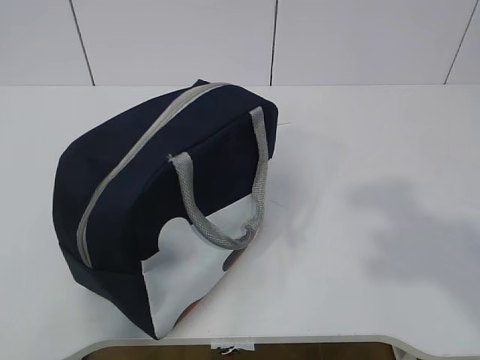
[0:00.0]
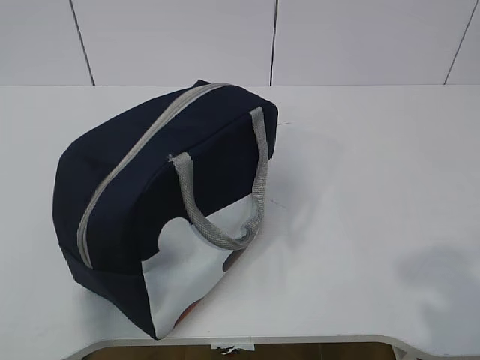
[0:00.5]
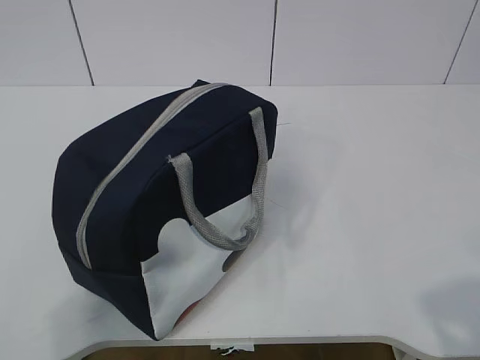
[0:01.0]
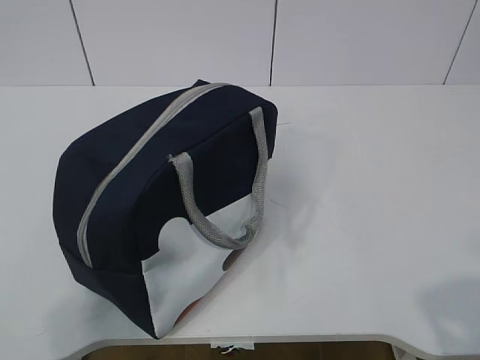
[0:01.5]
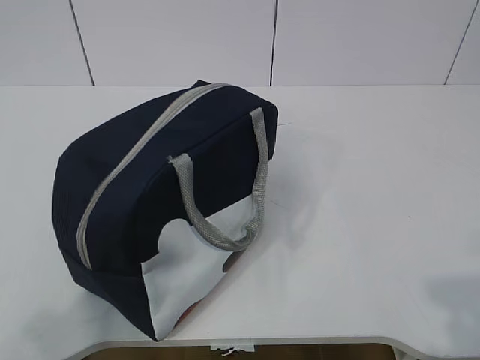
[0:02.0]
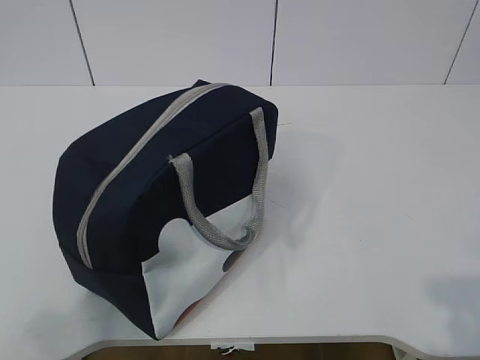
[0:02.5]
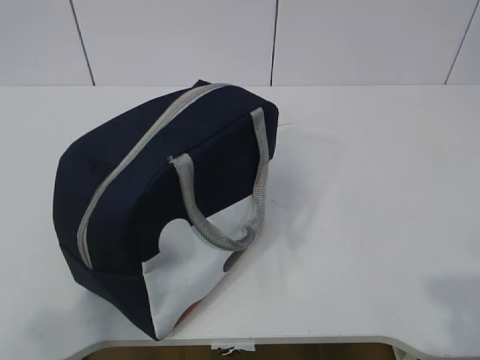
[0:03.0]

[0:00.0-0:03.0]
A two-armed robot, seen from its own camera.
0:00.0 to 0:01.5: The right gripper shifts roughly 10 cm downward and backward. The left gripper travels downward by roughly 10 cm.
0:01.5 to 0:03.0: The grippers make only small movements.

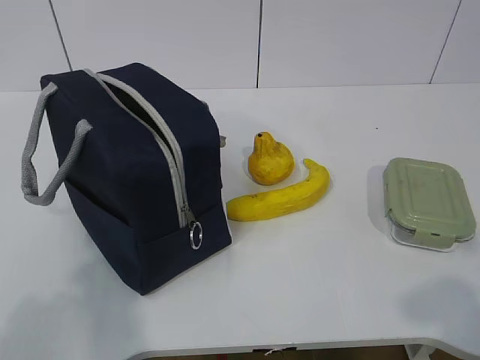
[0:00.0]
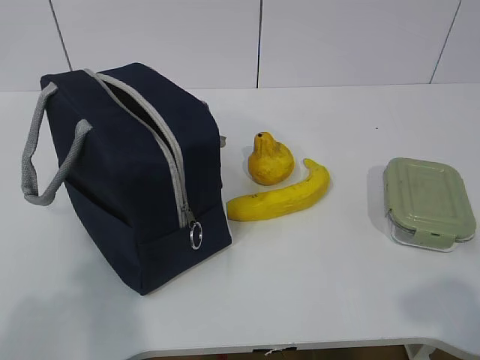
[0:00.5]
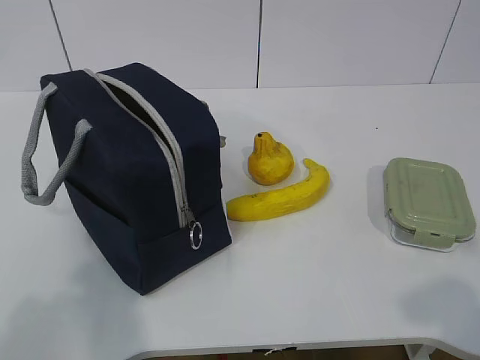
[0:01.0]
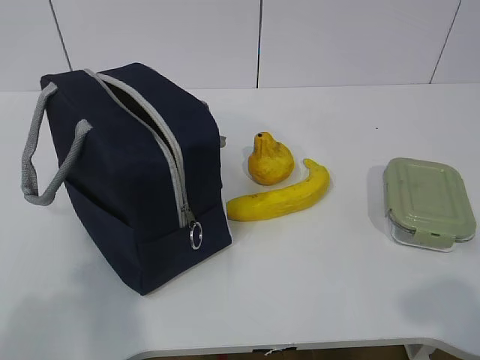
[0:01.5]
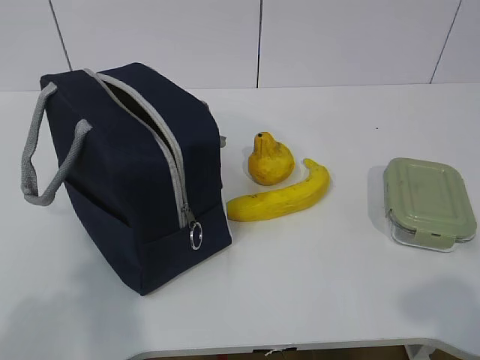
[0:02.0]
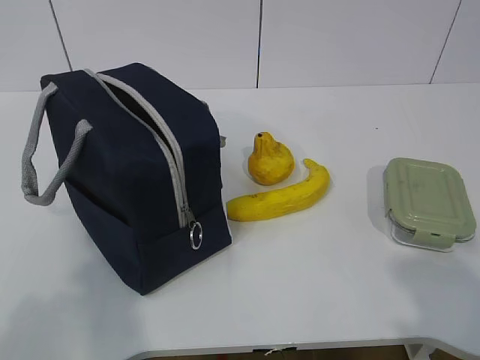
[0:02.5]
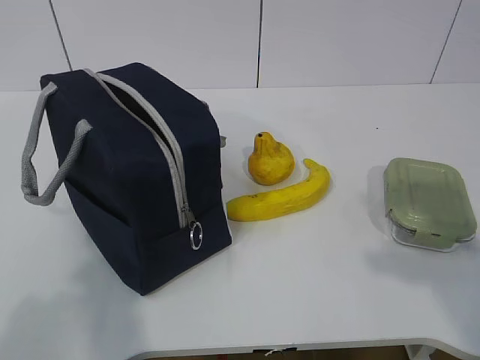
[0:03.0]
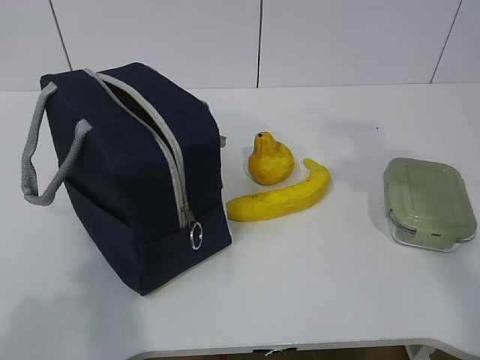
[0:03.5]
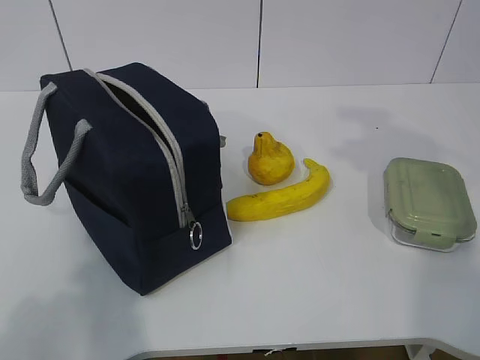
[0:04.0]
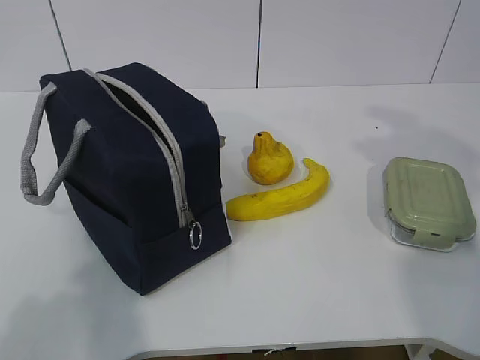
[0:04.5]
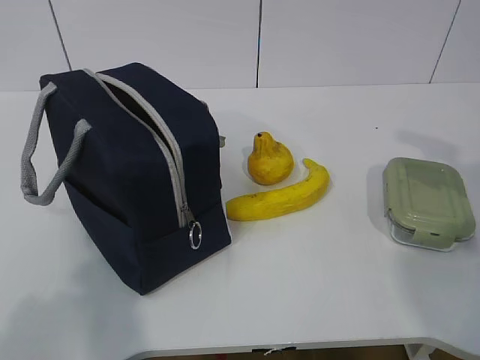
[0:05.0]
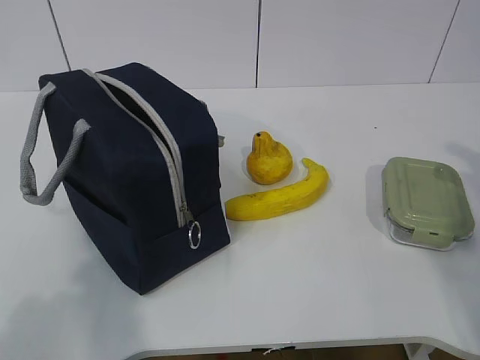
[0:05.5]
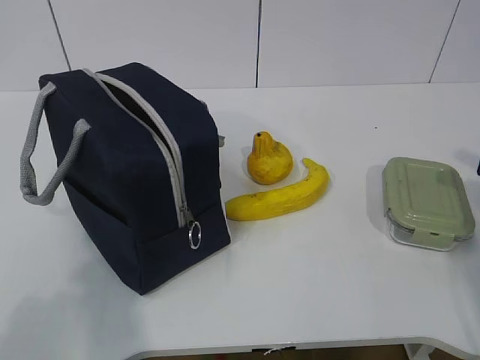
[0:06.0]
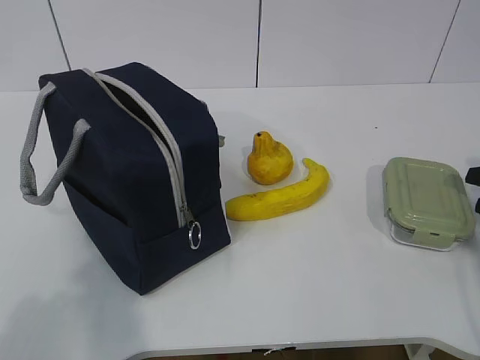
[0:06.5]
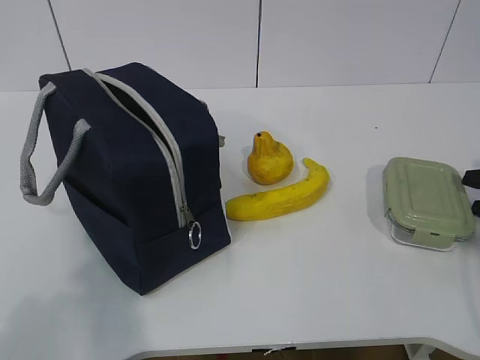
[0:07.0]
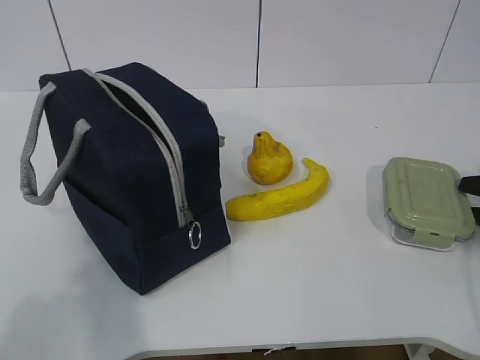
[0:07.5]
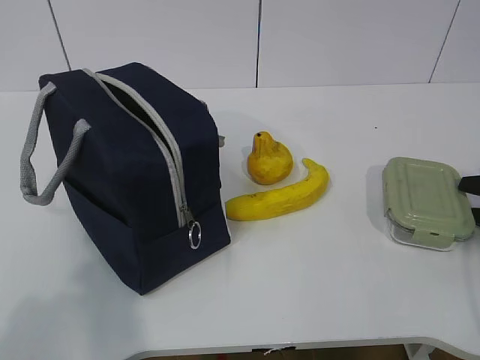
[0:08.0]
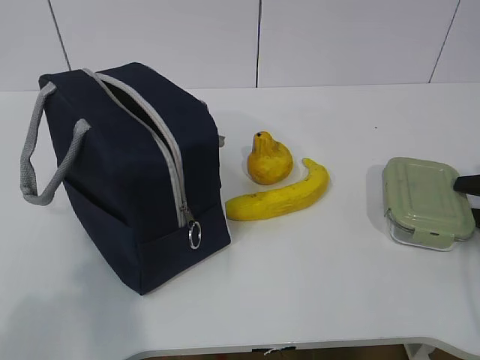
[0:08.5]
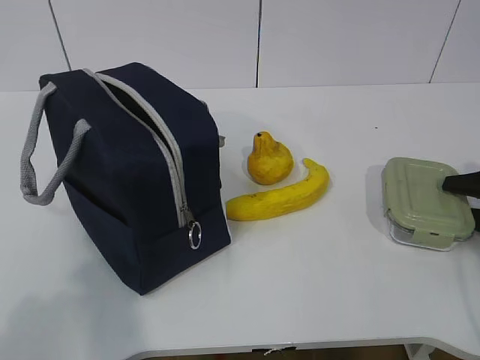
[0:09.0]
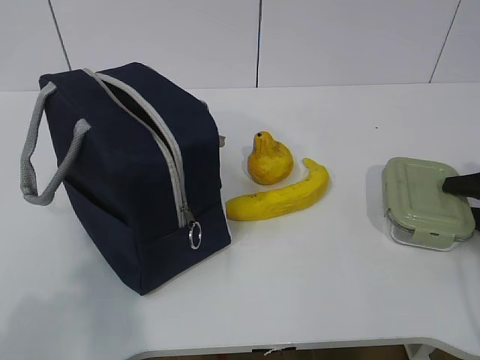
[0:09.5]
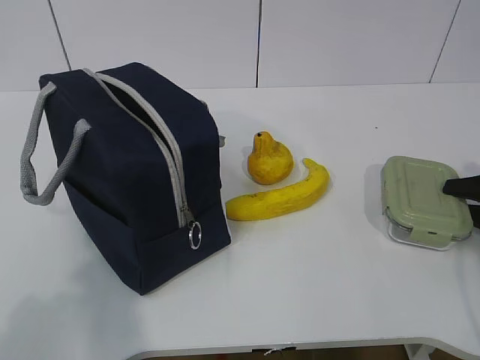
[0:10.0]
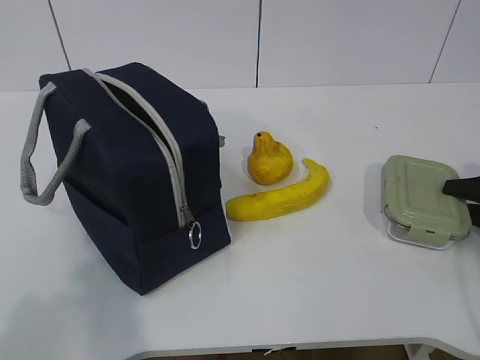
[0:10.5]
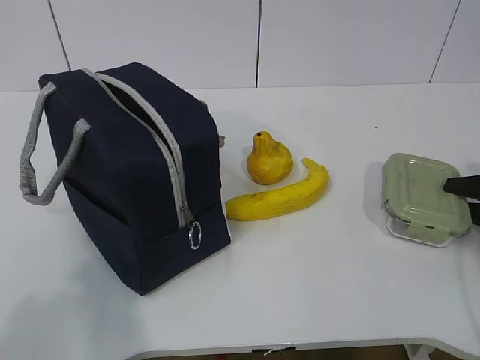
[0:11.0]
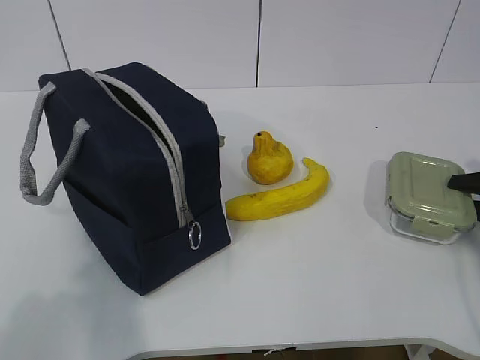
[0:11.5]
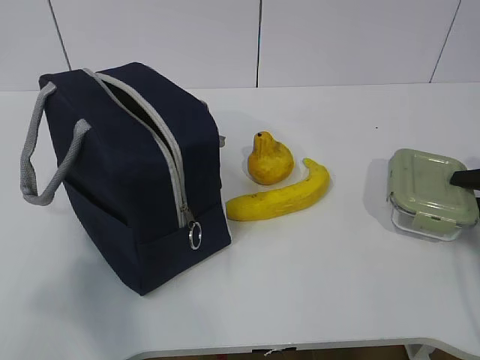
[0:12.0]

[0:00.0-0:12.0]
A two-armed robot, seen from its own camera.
Step, 0:00.0 to 0:09.0: Grab the lunch box with your right hand.
0:04.0 to 0:06.0: The right gripper heads downward and to the right, covering approximately 20 cm.
0:10.0 to 0:12.0: The grippers stay close to where they were, moving slightly.

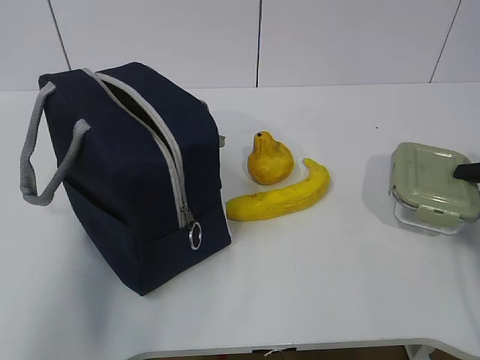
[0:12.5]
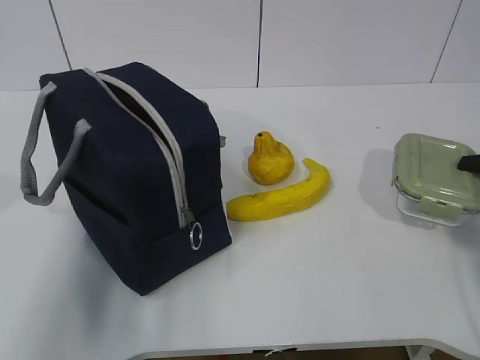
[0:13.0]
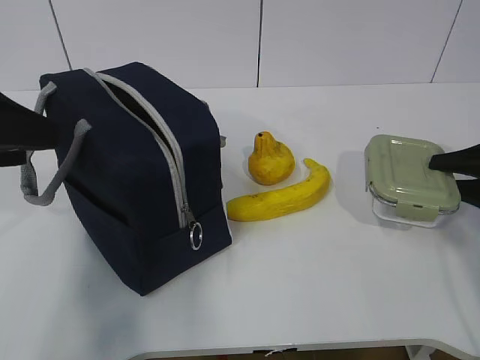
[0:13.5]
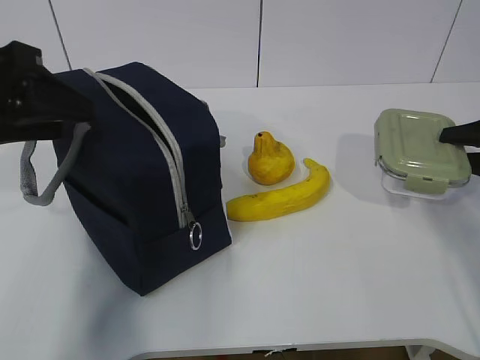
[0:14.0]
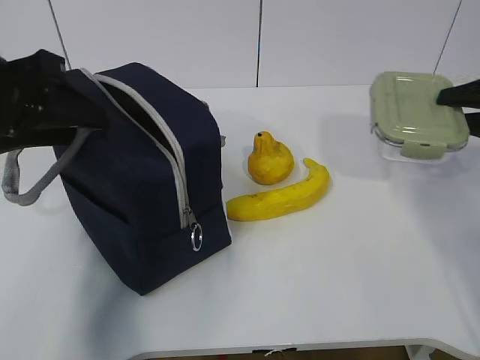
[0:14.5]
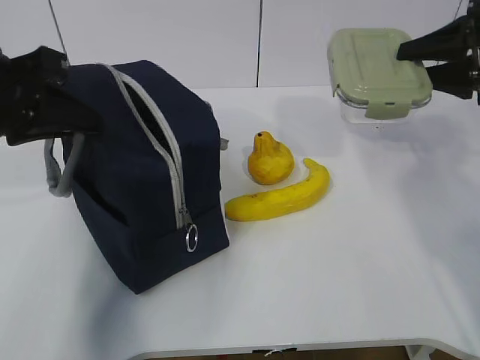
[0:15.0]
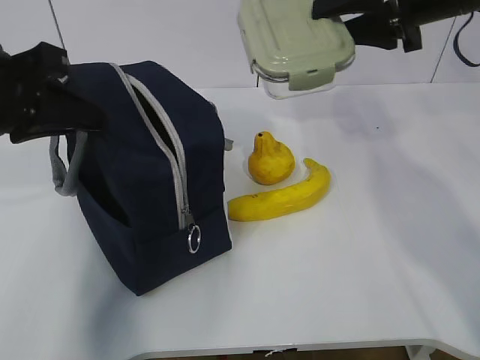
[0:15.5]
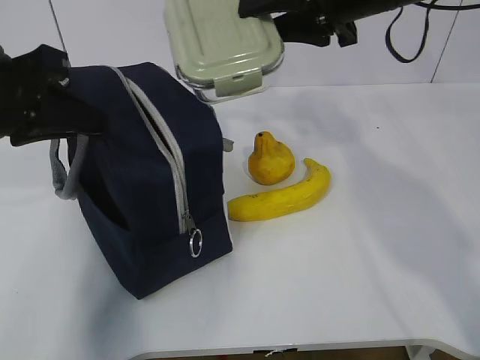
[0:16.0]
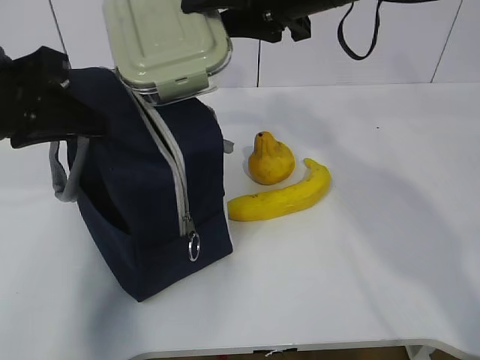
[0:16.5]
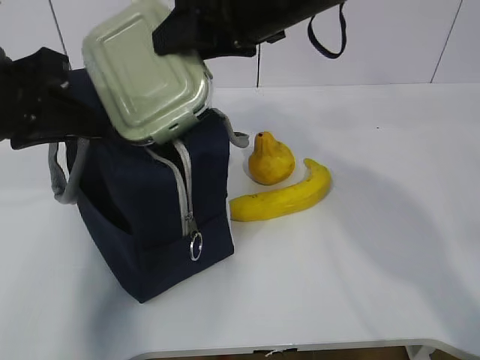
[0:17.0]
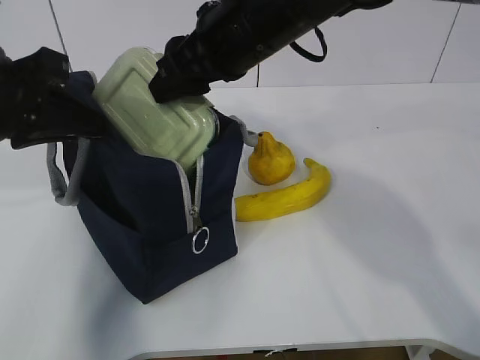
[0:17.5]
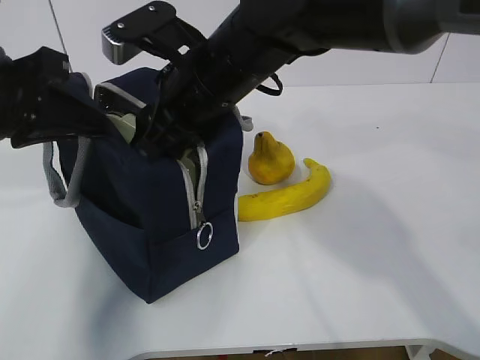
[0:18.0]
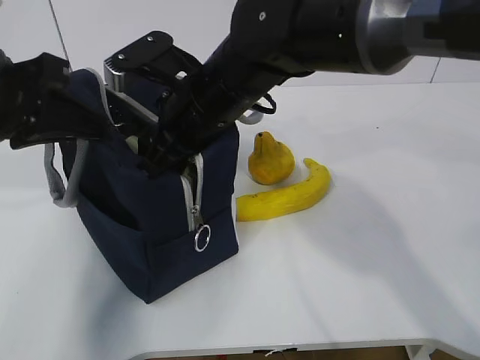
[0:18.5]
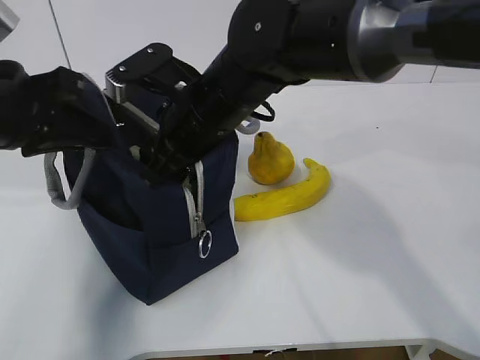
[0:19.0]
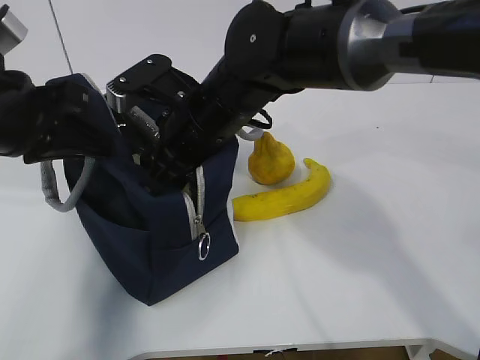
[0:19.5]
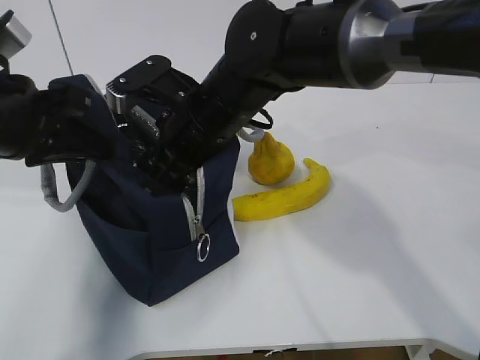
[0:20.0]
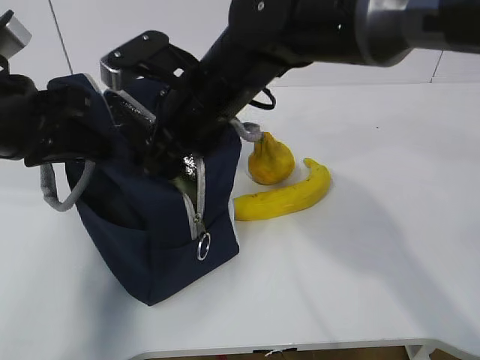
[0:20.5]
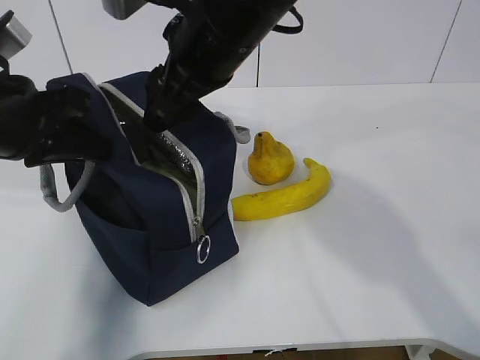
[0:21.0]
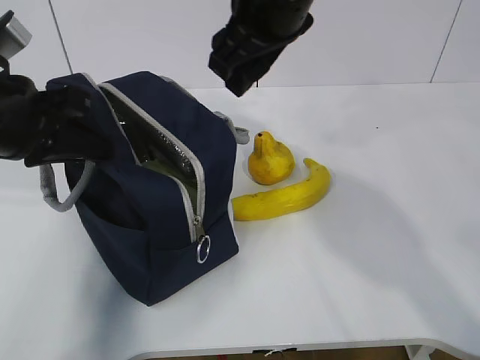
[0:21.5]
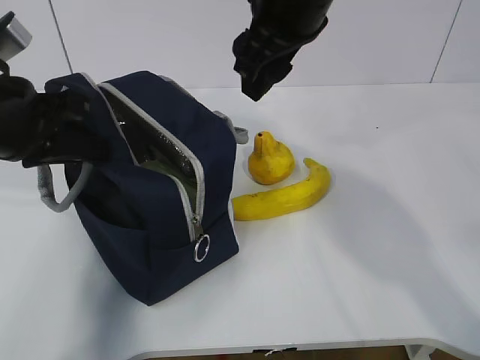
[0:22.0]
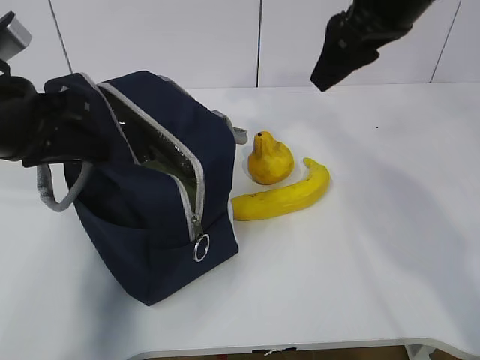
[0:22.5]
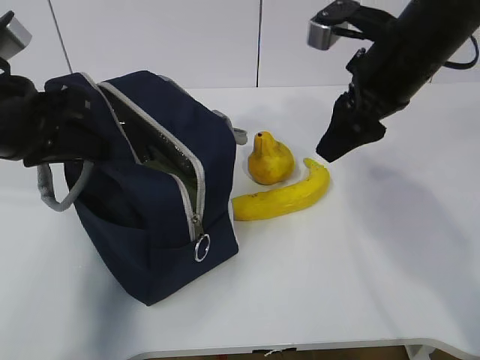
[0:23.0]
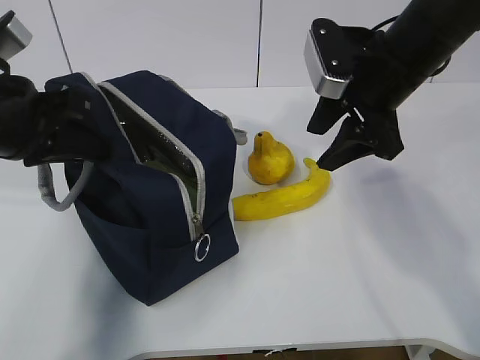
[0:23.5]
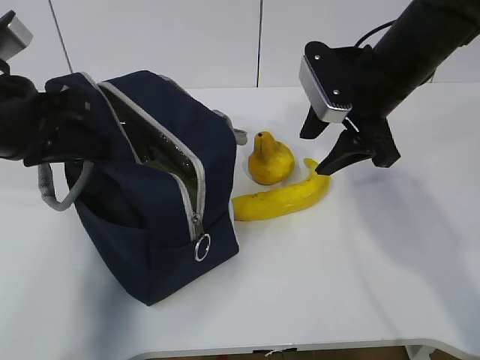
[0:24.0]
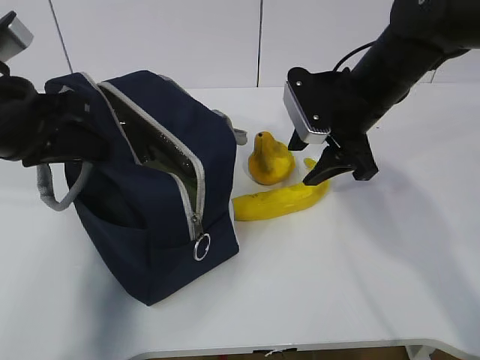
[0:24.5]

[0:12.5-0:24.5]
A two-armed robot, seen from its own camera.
Step, 0:13.5 to 0:16.5: Place it into the bag with your right hand.
Step, 0:17.0 to 0:23.0: Grab the banana with your right hand.
0:12.5 to 0:14.5: The left gripper shifts some 15 cm forward and to the right; the right gripper is displaced upward by roughly 10 cm.
0:14.5 to 0:16.5: The right gripper moves to the left and upward, about 30 cm, while the left gripper closes its fingers.
0:16.5 to 0:18.5: The right gripper is displaced to the left and downward by about 15 cm.
0:18.5 to 0:20.5: The grippers move only a little.
0:20.5 to 0:22.5: The right gripper travels to the right and upward by approximately 20 cm.
0:22.5 to 0:24.5: The right gripper travels downward by roughly 15 cm.
